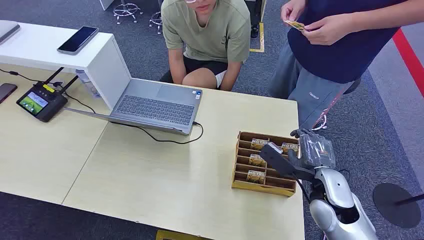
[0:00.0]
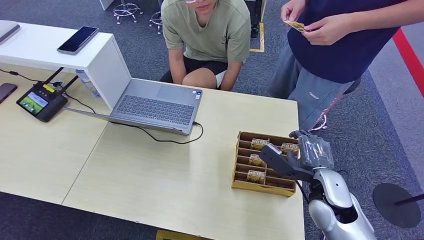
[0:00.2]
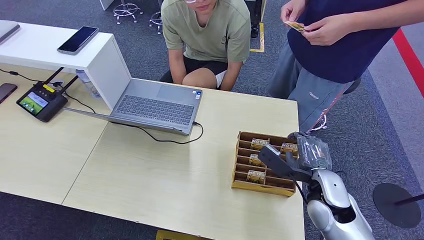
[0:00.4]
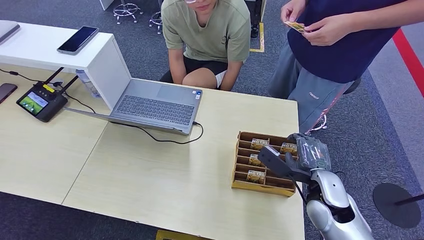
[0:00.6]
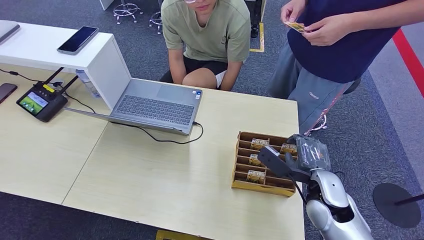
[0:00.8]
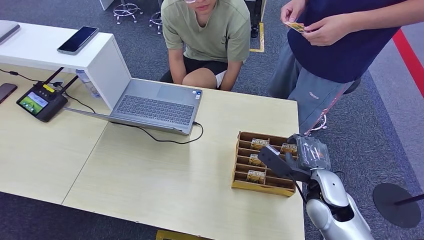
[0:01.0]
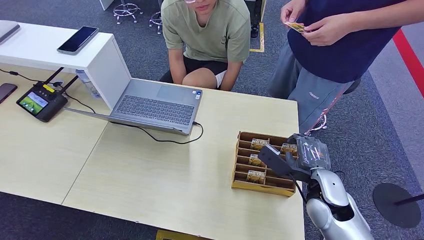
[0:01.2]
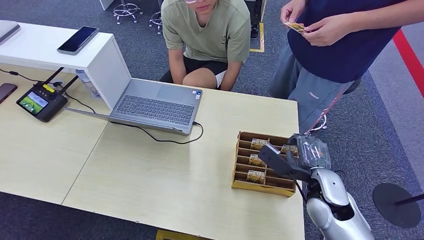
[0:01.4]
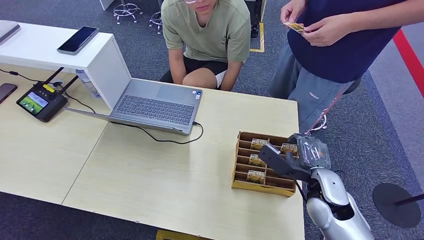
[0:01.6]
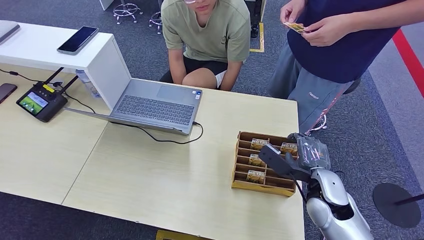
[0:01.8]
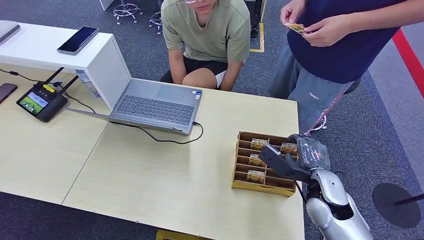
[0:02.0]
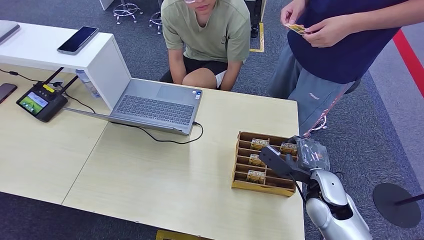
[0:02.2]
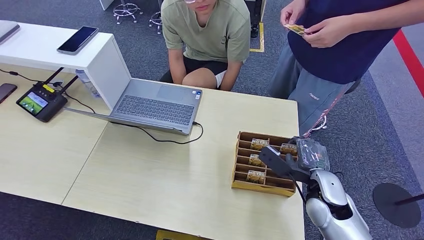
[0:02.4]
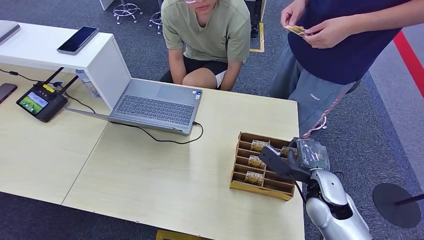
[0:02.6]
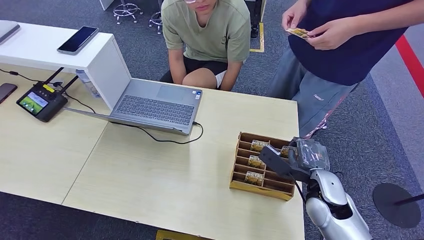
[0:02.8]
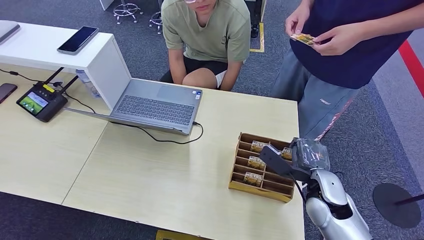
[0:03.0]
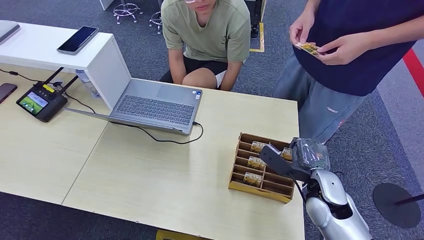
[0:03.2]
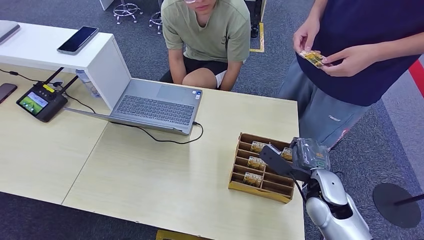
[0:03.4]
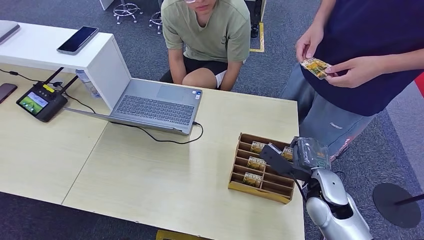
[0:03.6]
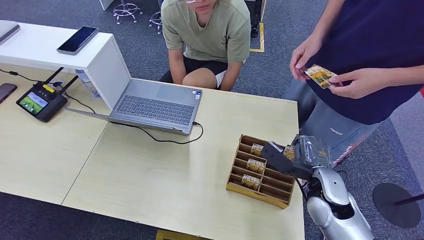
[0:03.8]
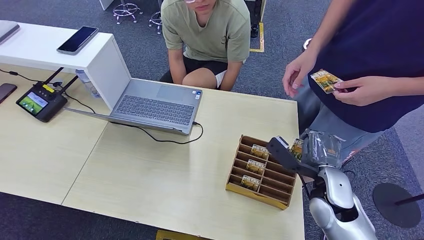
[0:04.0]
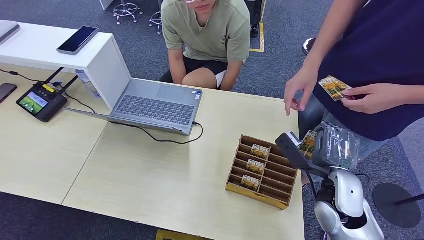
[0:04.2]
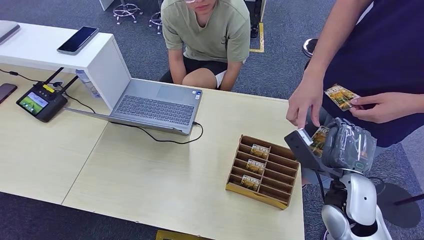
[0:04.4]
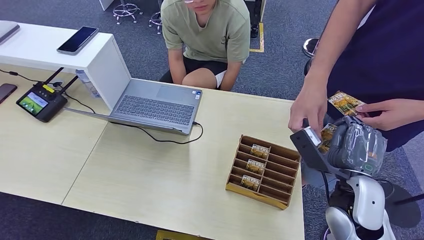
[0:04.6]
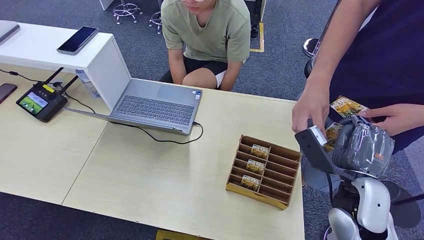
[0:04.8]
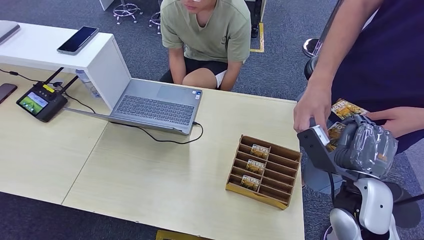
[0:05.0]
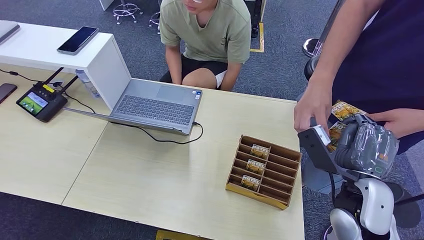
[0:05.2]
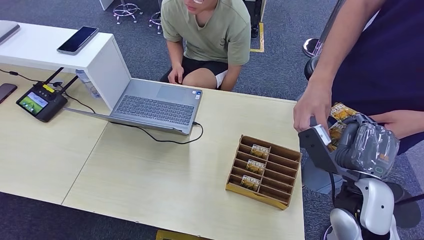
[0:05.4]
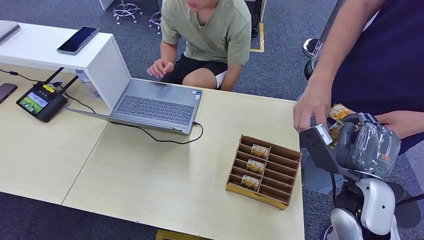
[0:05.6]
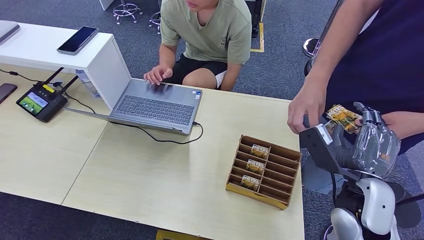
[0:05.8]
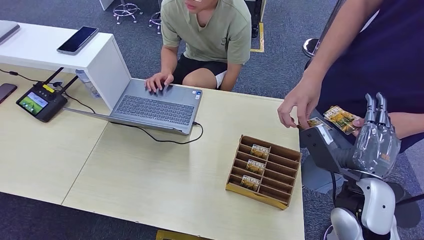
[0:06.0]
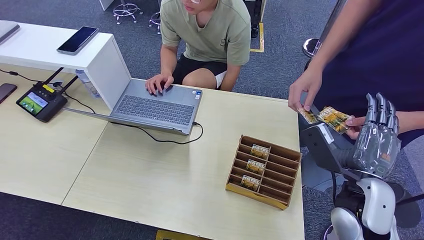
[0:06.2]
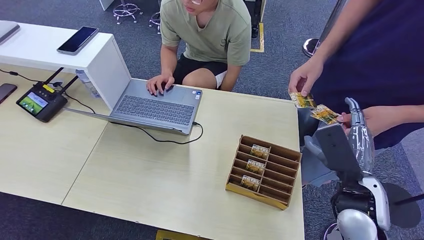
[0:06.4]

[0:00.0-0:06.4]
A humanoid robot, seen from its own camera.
Step, 0:00.0 to 0:04.4: Pick up the room card from the card holder.
Step, 0:04.8 to 0:06.4: Hand the room card to the target.
0:01.6 to 0:03.2: Both hands stay put.
0:04.8 to 0:06.4: The right hand is displaced downward by some 5 cm.
